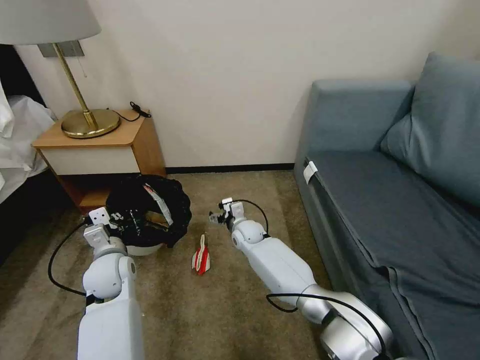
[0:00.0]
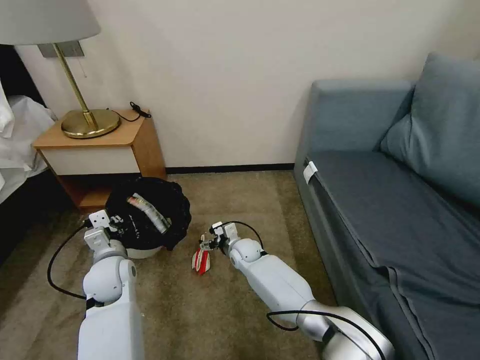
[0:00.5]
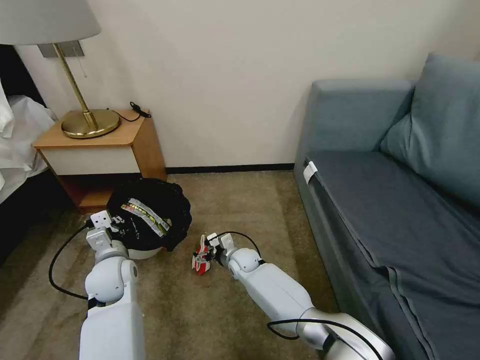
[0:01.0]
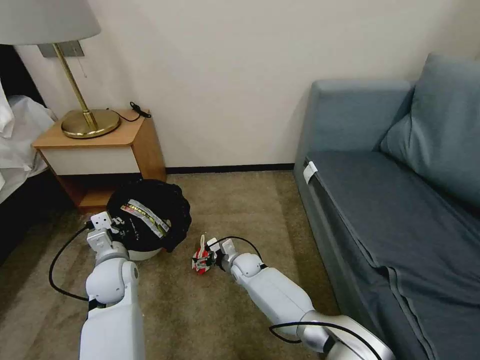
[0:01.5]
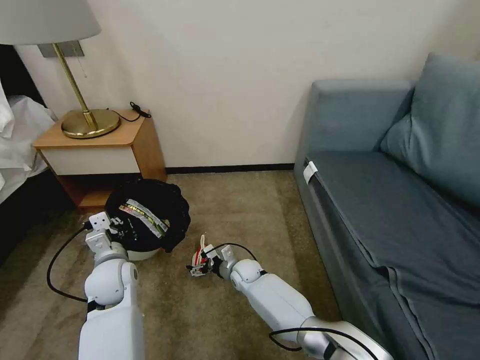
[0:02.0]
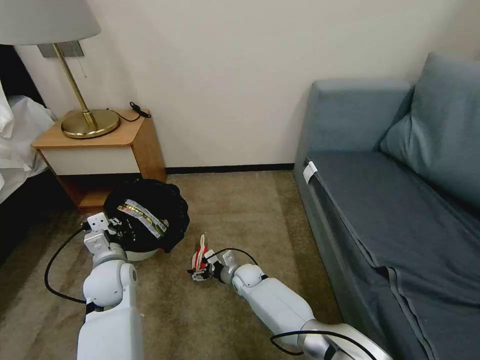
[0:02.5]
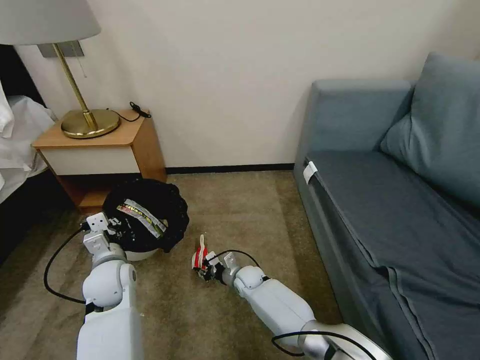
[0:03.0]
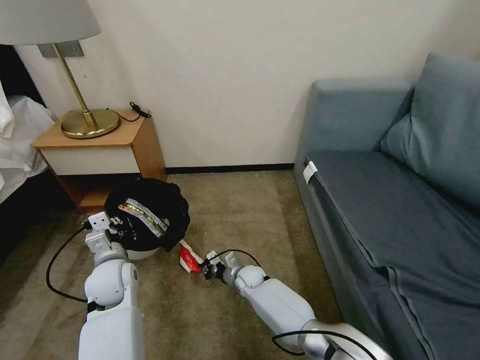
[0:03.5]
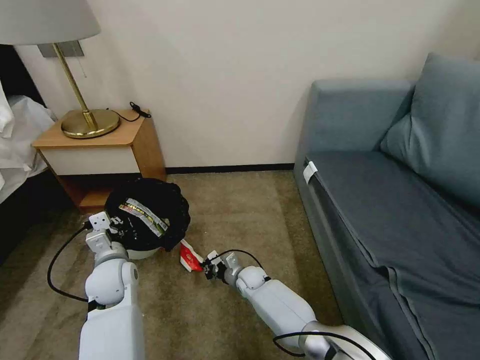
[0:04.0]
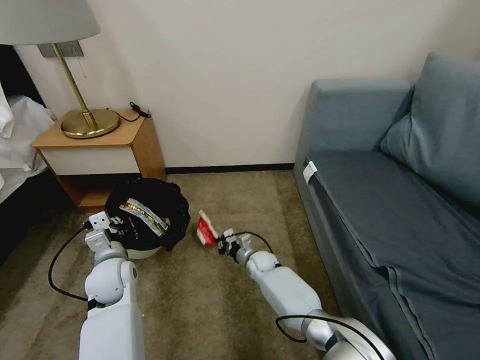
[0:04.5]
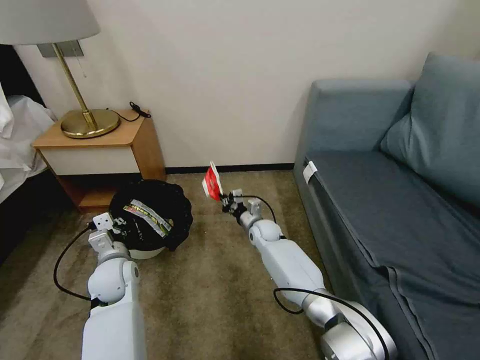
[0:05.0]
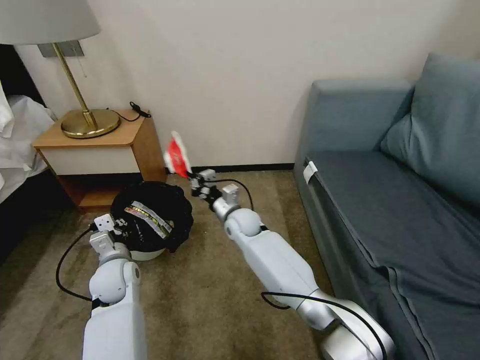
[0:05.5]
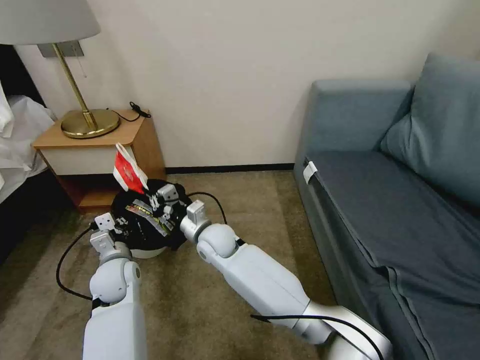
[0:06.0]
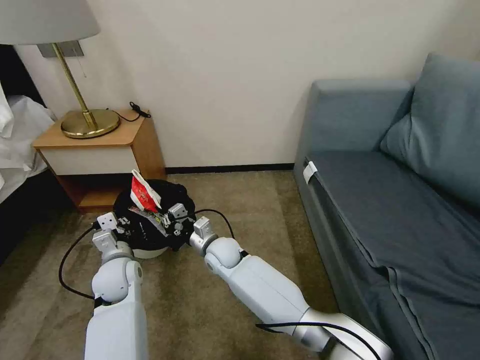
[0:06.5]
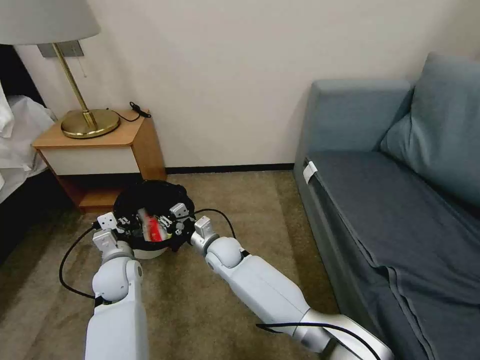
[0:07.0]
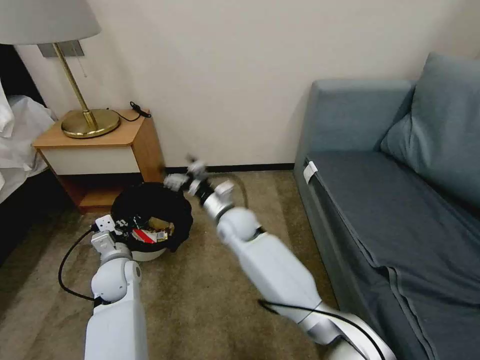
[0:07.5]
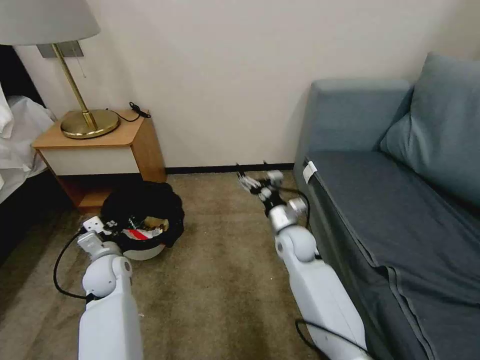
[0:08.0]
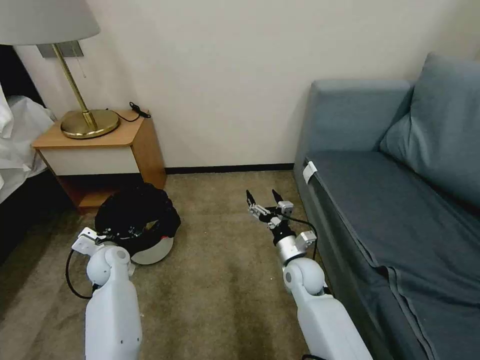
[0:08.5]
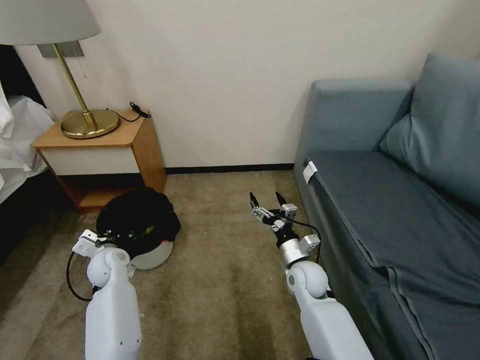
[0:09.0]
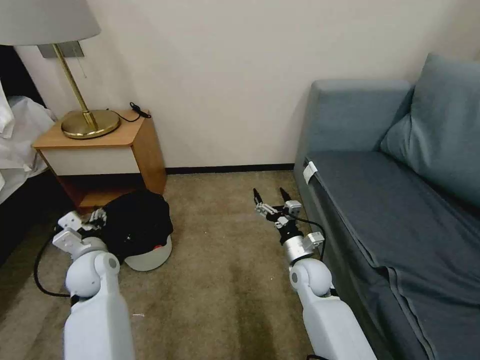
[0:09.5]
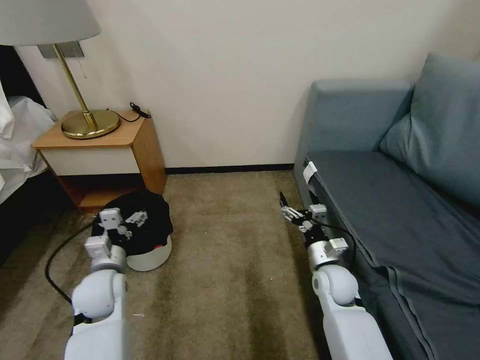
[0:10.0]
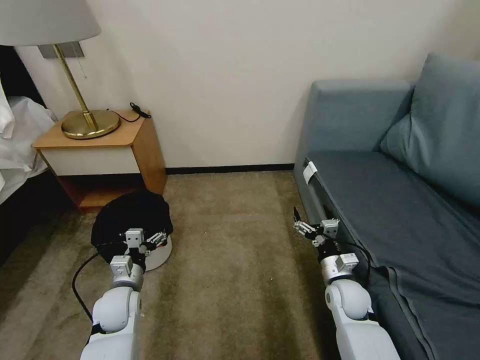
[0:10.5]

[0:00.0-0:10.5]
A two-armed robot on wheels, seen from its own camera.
Task of the whole recording: Pick up the trash bin, then pick up the garbage on the floor and place it into the trash bin.
0:00.0 to 0:02.0: The right gripper travels downward and backward by approximately 10 cm.
0:02.0 to 0:04.0: The right gripper closes its fingers.
0:04.0 to 0:06.5: The right gripper shifts about 20 cm upward and to the left.
0:06.5 to 0:08.5: The left gripper moves to the left and forward, about 10 cm. Meanwhile the right gripper heads to the right, covering about 20 cm, and opens.
0:08.5 to 0:10.5: The left gripper goes approximately 10 cm backward and to the right, and opens its fingers. The right gripper moves to the right, approximately 10 cm.

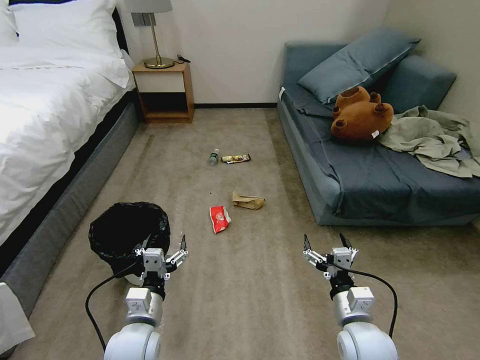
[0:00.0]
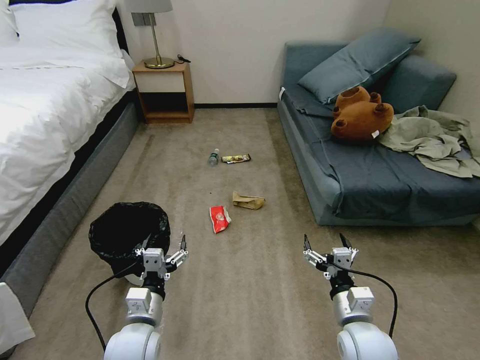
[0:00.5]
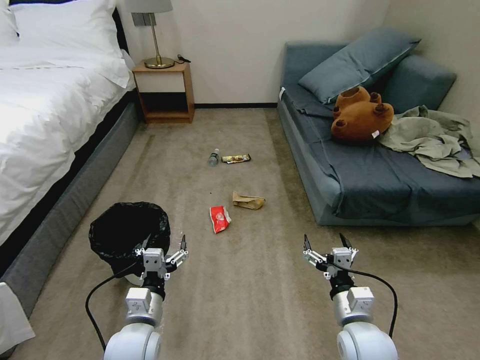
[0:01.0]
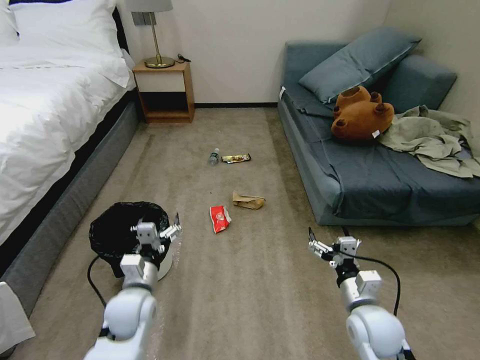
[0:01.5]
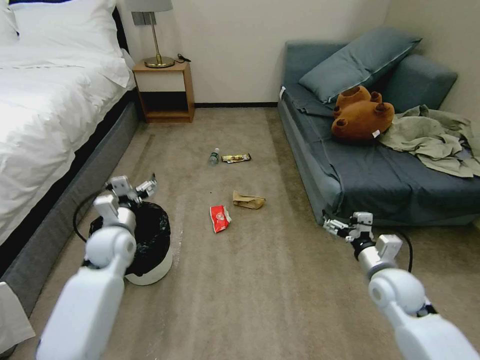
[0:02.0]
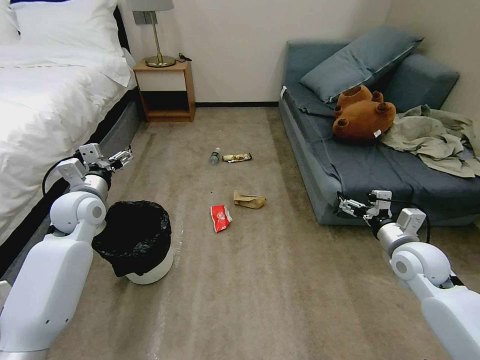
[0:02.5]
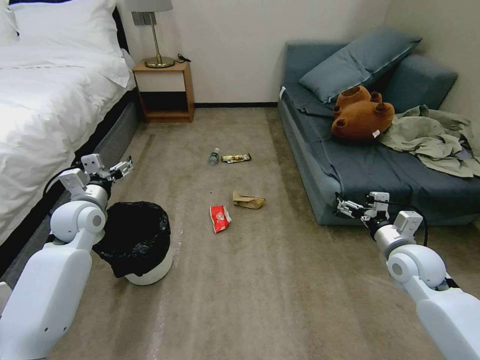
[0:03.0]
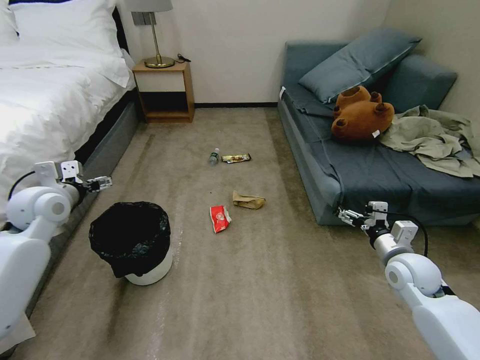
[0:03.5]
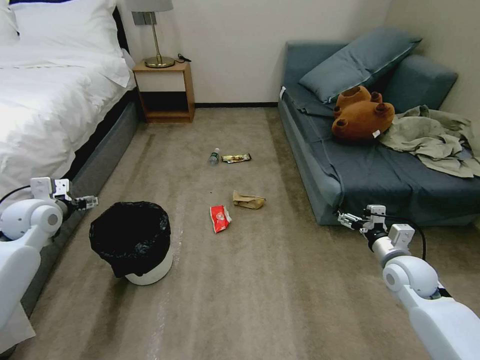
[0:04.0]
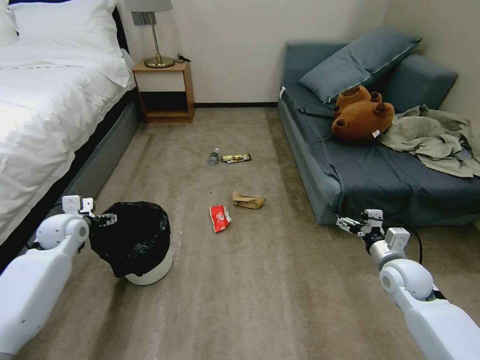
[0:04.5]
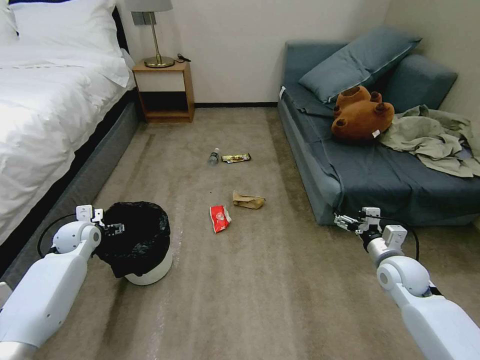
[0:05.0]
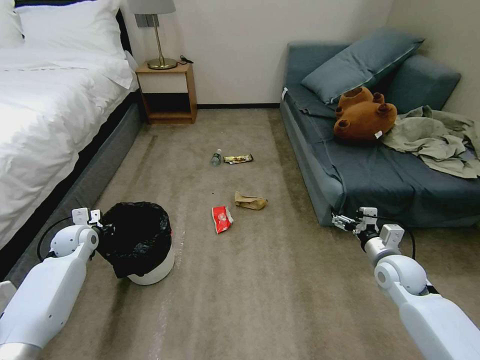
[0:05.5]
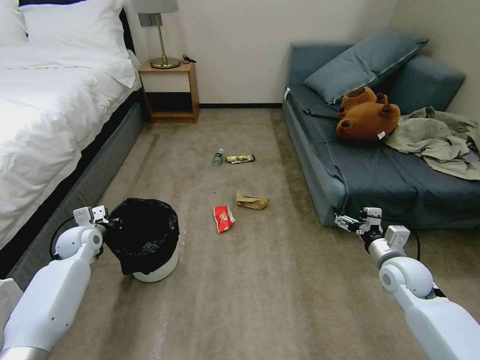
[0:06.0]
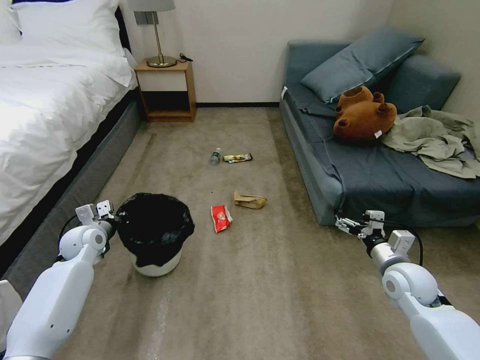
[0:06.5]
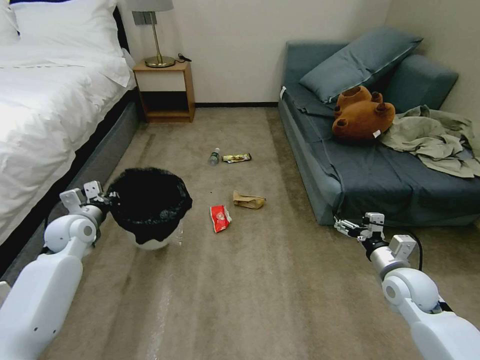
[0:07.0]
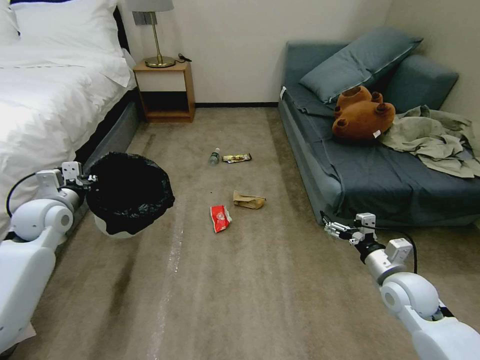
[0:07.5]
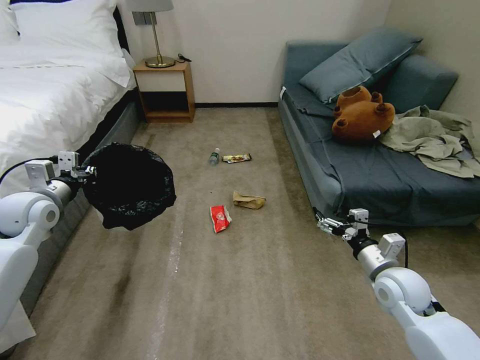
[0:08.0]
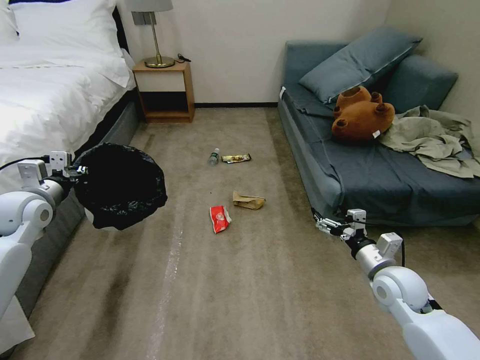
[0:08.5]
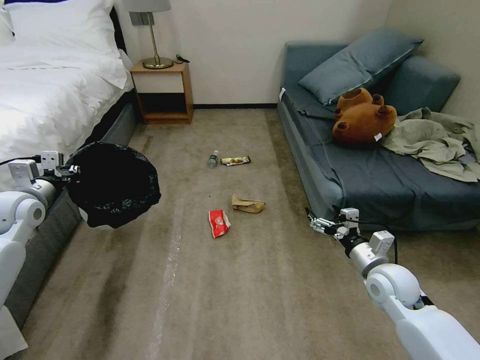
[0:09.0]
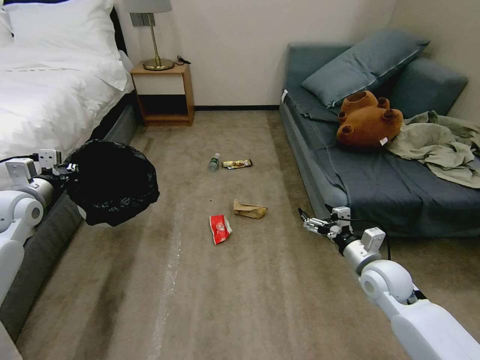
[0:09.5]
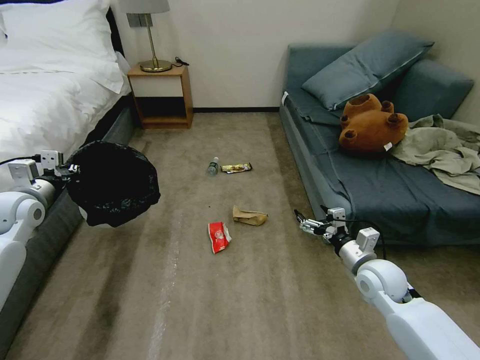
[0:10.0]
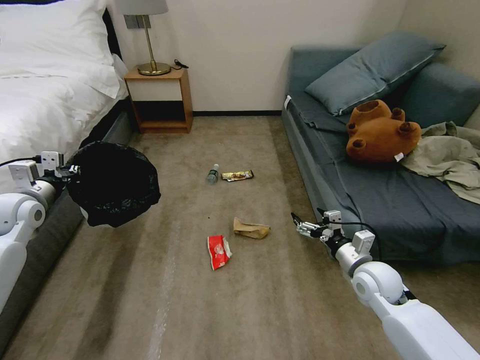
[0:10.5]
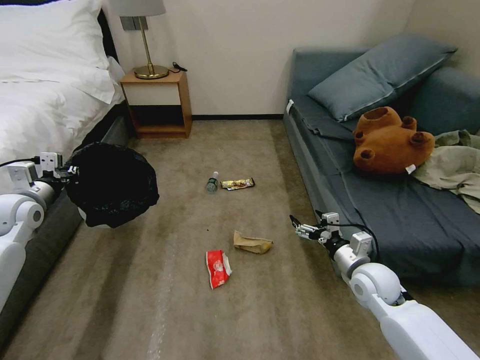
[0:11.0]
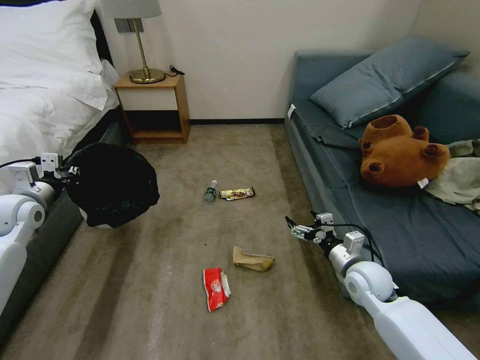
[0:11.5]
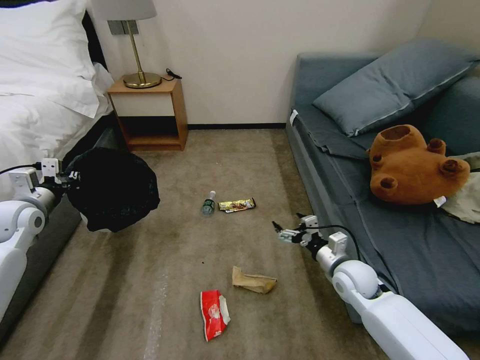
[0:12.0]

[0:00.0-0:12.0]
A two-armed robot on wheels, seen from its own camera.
Task of the whole recording: Pick up the trash bin, then pick up the garbage on the floor and place it into the trash bin.
0:02.0 to 0:04.0: The right gripper changes place by some 5 cm. Meanwhile the left gripper heads to the left and upward, covering some 15 cm.
0:04.0 to 0:06.0: The left gripper shifts some 15 cm downward, and closes its fingers.
0:06.0 to 0:08.0: The right gripper ends up about 5 cm from where it was; the left gripper goes about 15 cm upward.
0:10.0 to 0:12.0: The right gripper shifts by some 5 cm.

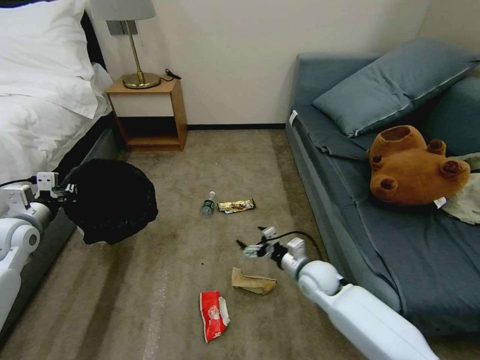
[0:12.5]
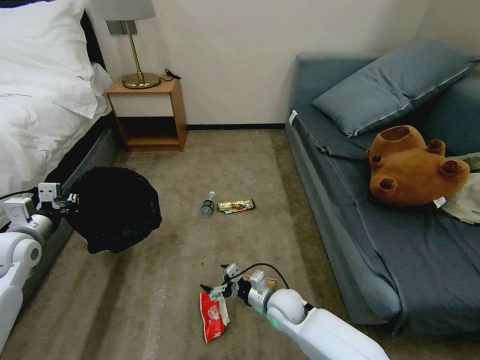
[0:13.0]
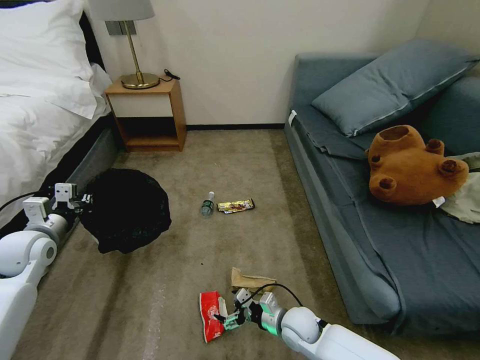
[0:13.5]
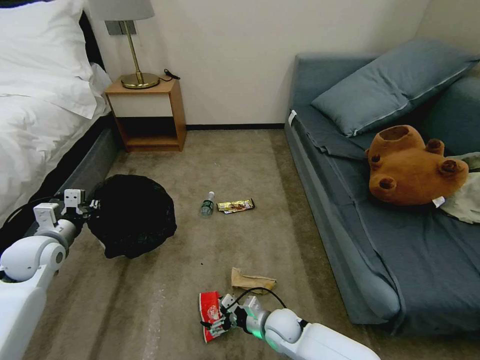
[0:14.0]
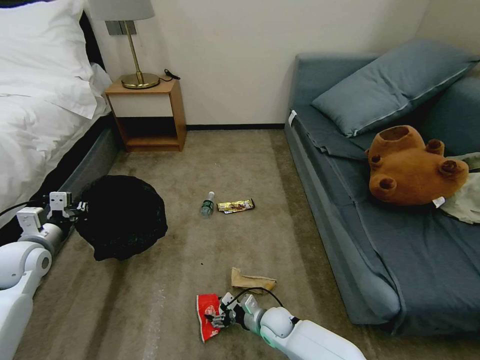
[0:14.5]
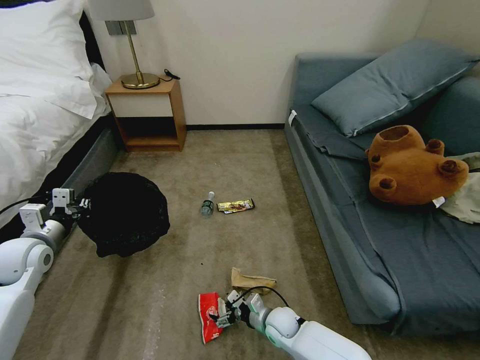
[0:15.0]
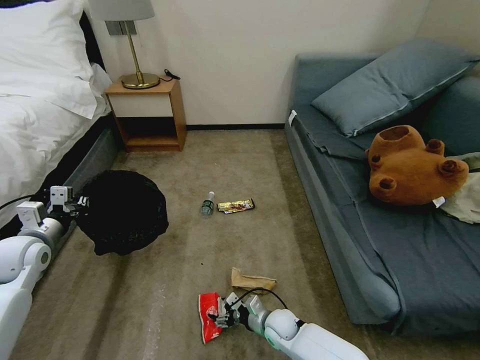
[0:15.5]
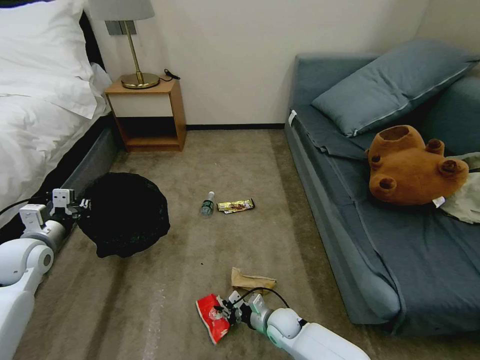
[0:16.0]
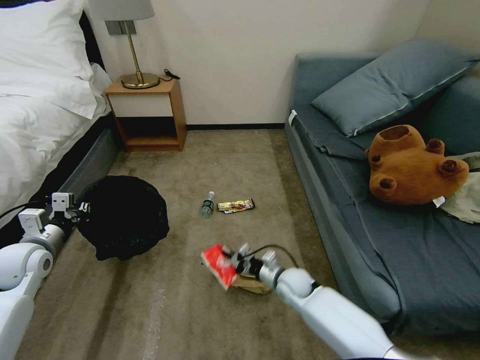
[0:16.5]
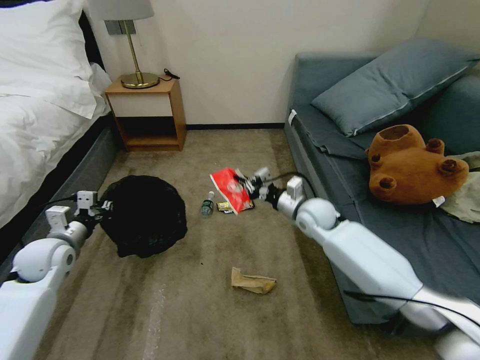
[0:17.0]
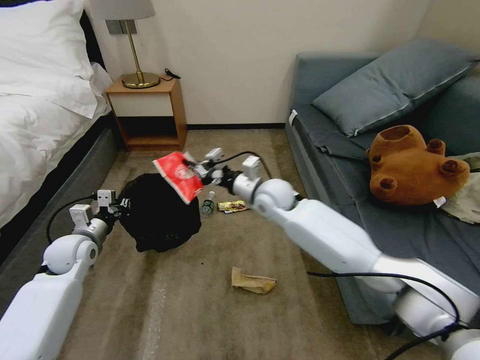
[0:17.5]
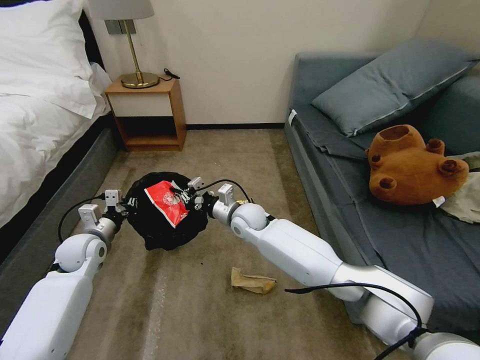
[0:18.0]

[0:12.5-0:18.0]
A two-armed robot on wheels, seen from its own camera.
Task of the whole recording: Pick up the trash bin, then pick up the garbage on the floor and place it into the trash bin.
0:12.5 to 0:14.5: The left gripper shifts by about 5 cm. The right gripper is displaced downward, to the left and backward by approximately 20 cm.
0:14.5 to 0:16.0: The right gripper closes.
0:16.0 to 0:18.0: The right gripper is displaced upward, forward and to the left by some 35 cm. Meanwhile the left gripper shifts roughly 10 cm to the right, downward and forward.
